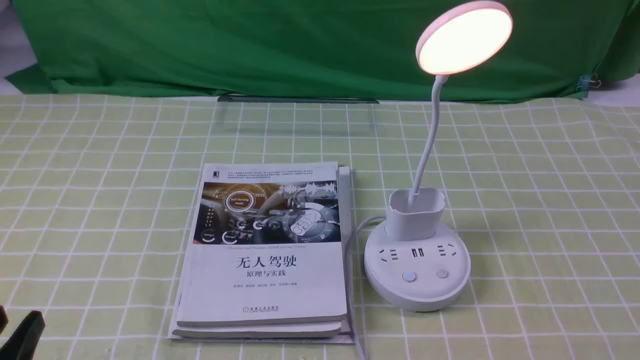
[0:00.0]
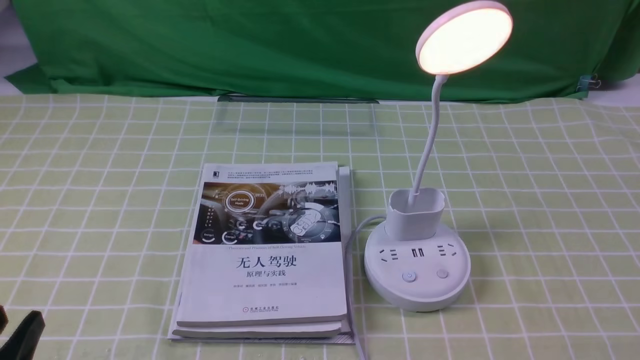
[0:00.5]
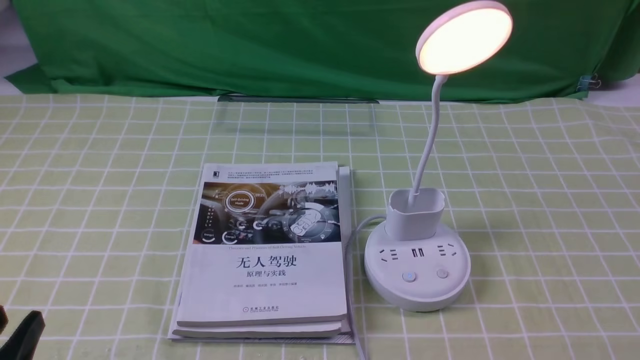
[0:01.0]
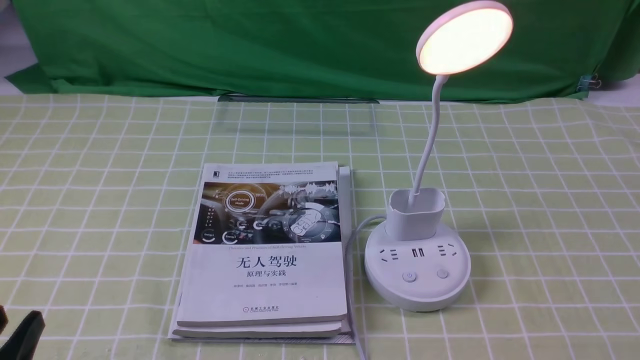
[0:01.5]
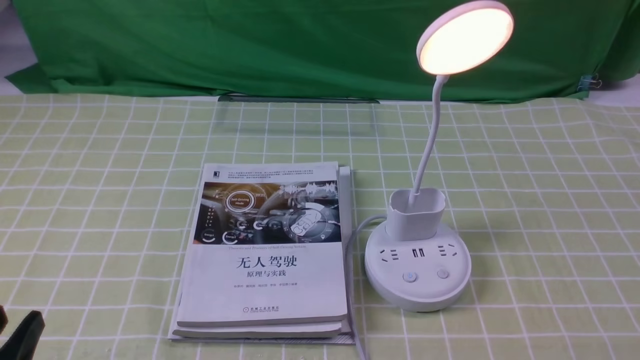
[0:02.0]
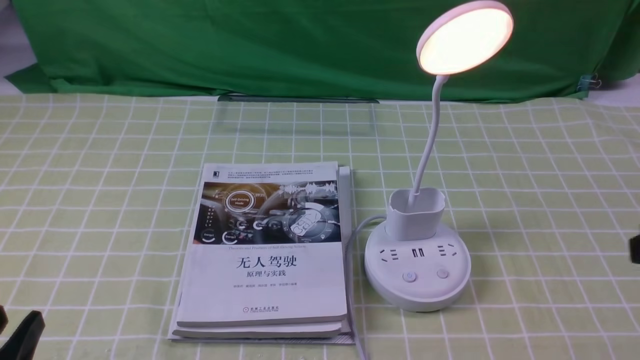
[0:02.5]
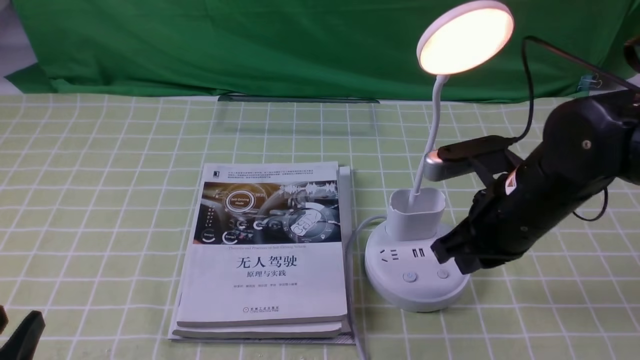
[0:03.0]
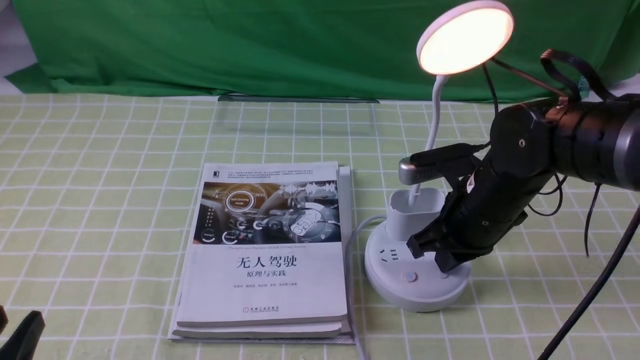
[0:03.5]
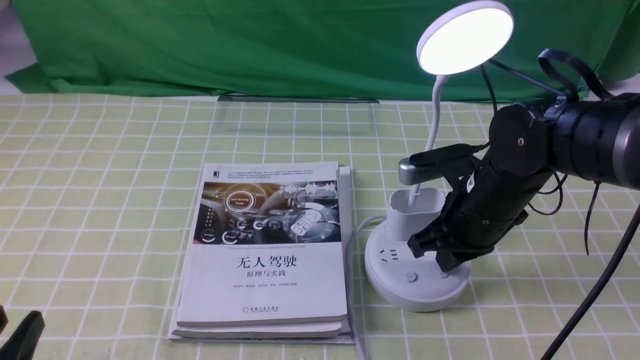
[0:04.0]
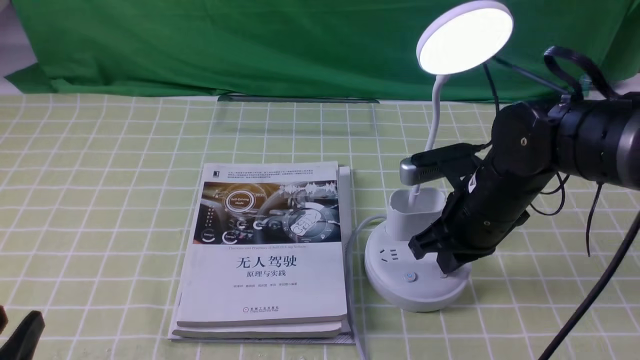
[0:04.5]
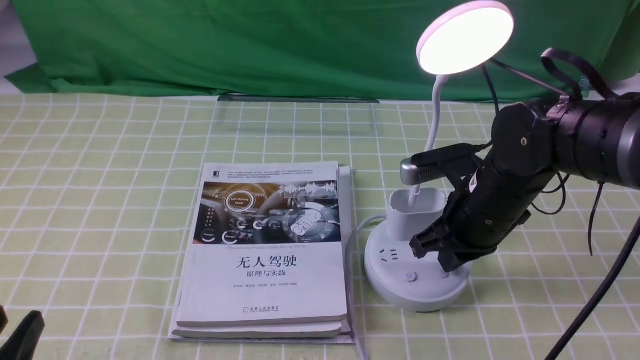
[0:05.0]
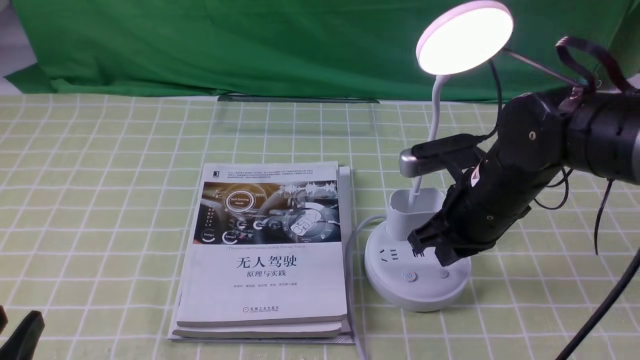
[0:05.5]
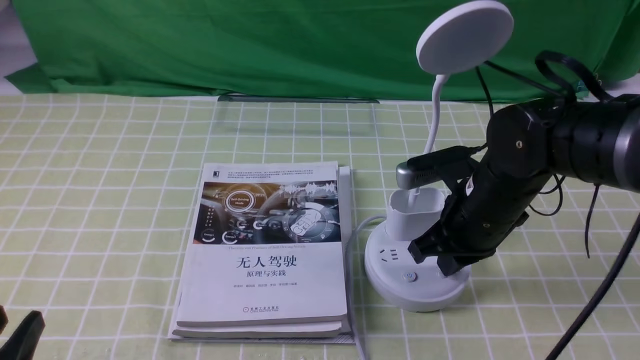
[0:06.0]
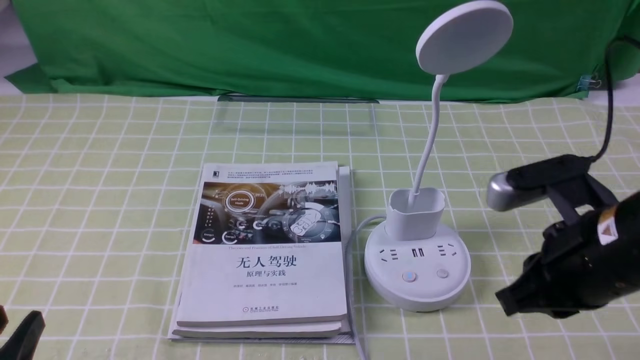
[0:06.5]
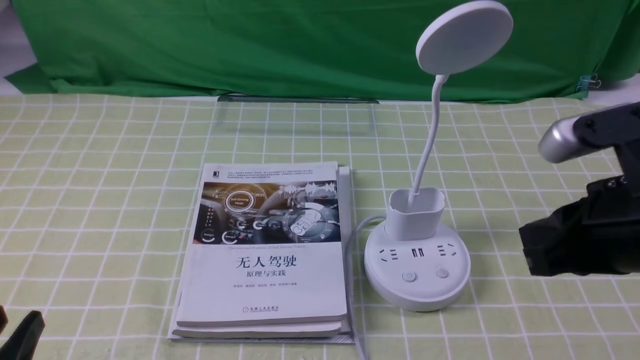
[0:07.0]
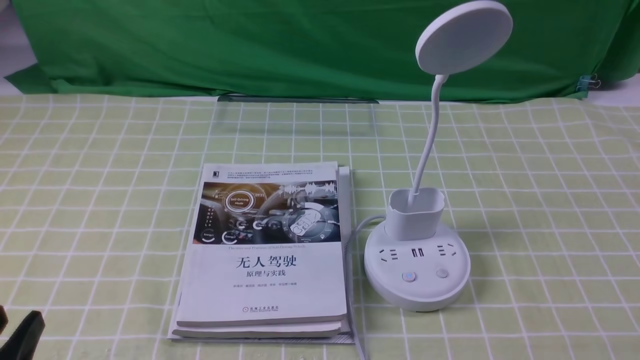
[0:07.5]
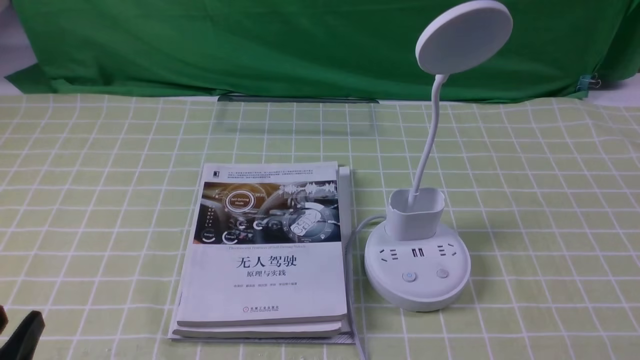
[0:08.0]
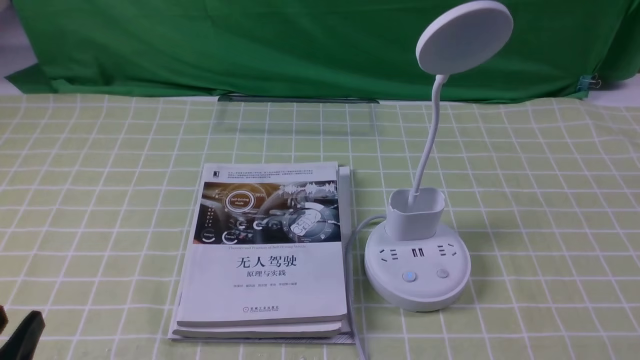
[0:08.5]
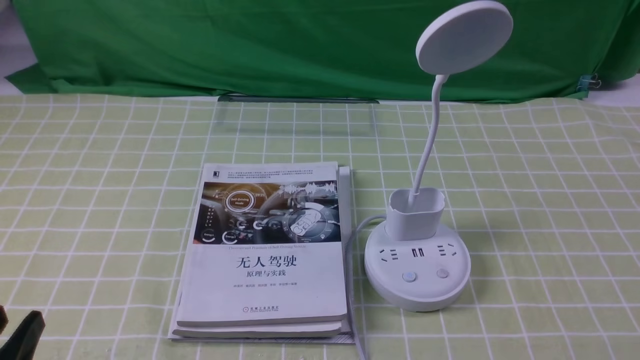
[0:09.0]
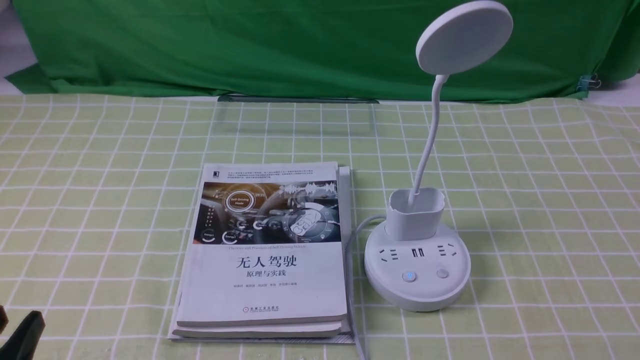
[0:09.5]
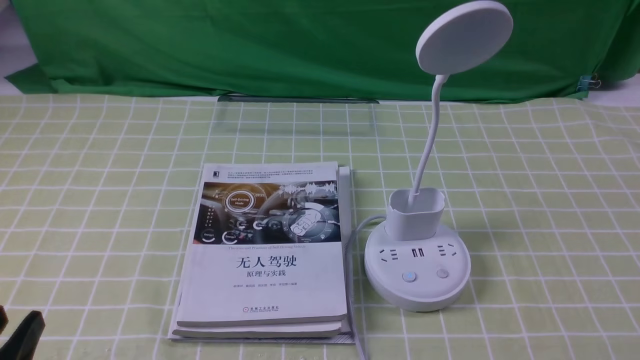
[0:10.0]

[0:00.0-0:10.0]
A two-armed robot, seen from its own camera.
Task of the whole recording: turn off the desk lamp on the green coffee tablecloth by hand.
Step, 0:00.0 to 0:06.0: use the right arm to press the button switch on the lamp holder.
0:02.0 to 0:04.0: The right gripper goes about 30 cm forward and to the left, and closes up.
0:04.0 to 0:06.0: There are only small adjustments of the grippers.
0:06.0 to 0:08.0: The right gripper is displaced backward and to the right by roughly 30 cm.

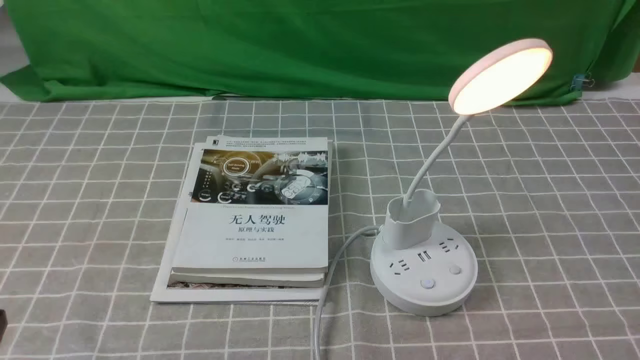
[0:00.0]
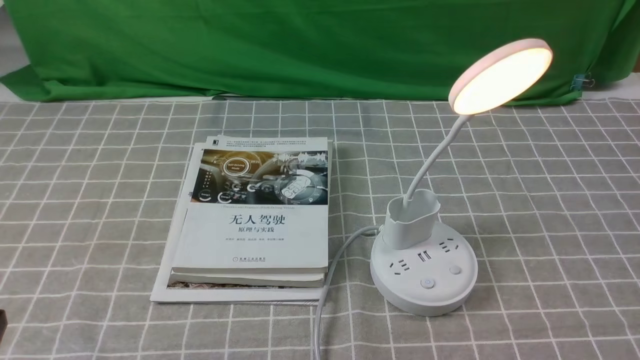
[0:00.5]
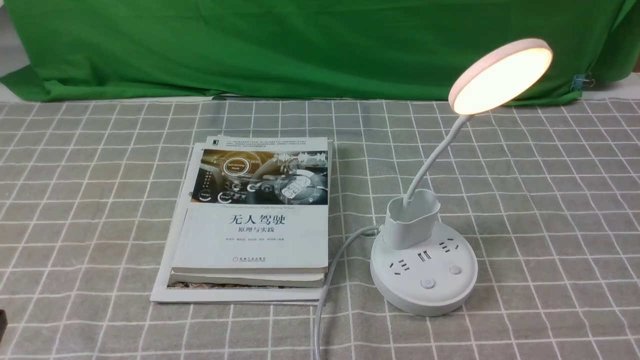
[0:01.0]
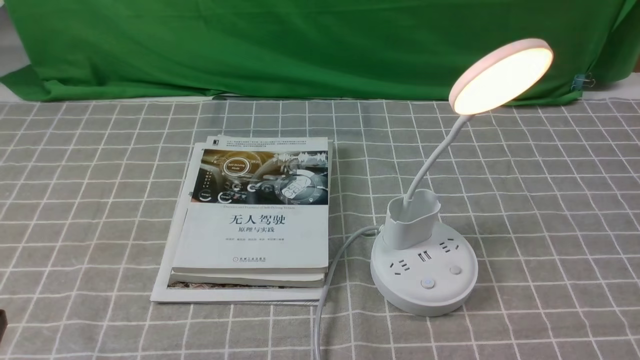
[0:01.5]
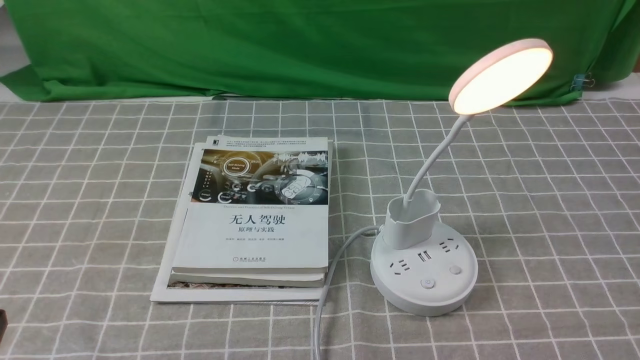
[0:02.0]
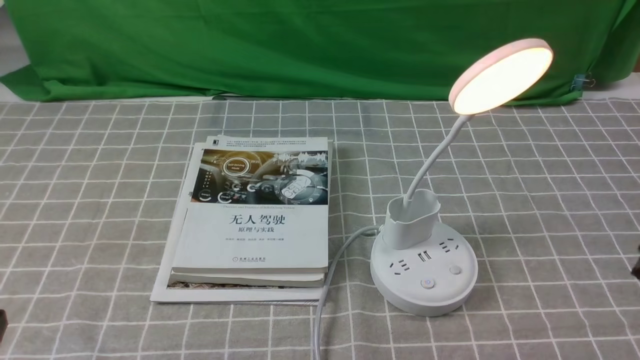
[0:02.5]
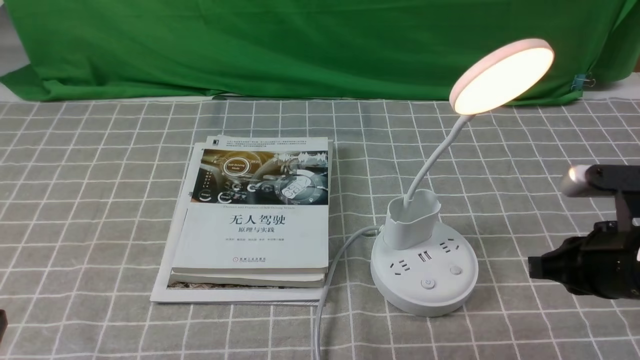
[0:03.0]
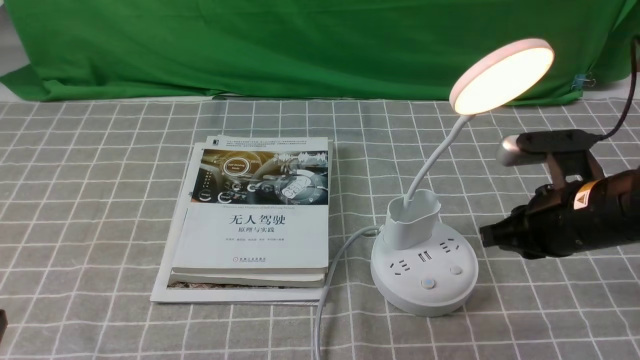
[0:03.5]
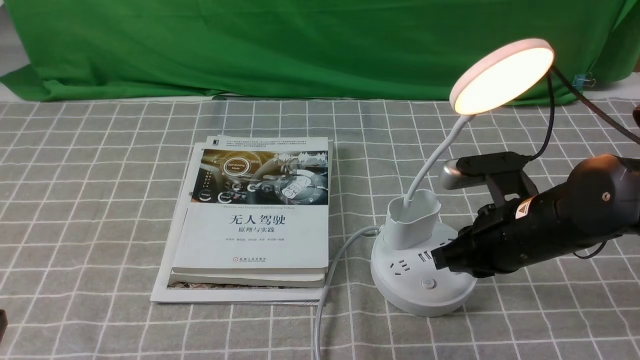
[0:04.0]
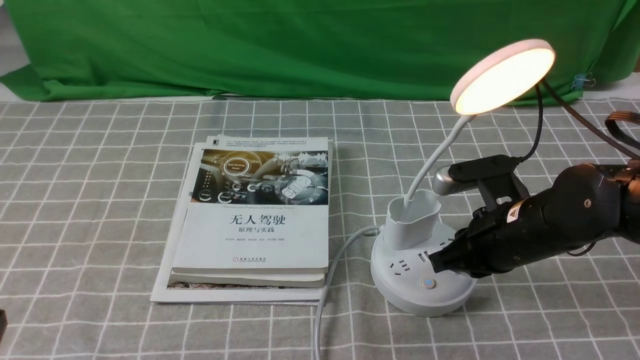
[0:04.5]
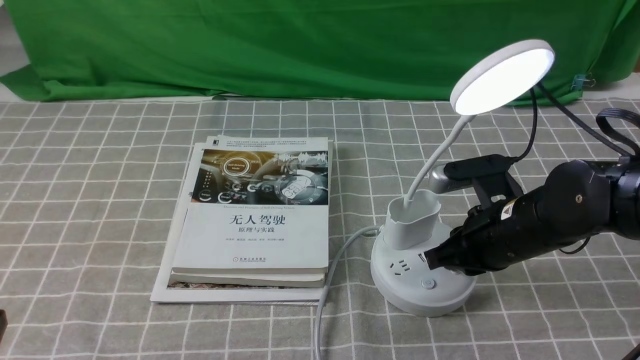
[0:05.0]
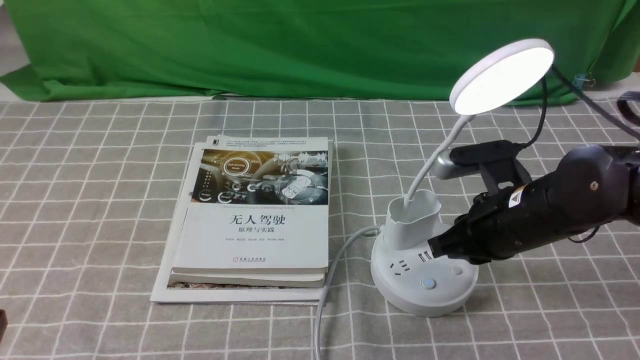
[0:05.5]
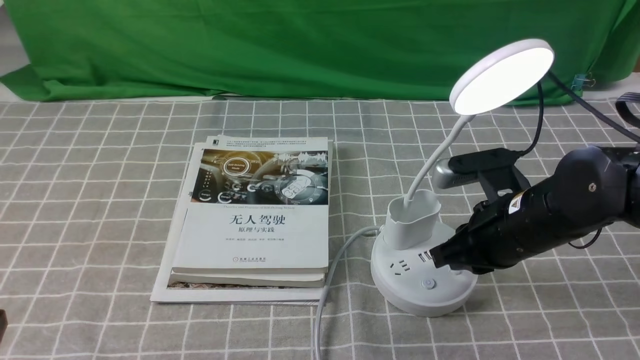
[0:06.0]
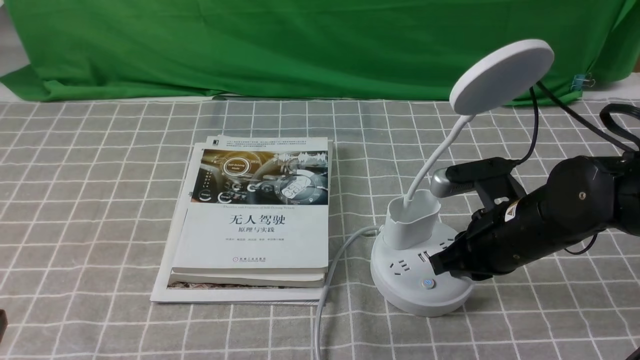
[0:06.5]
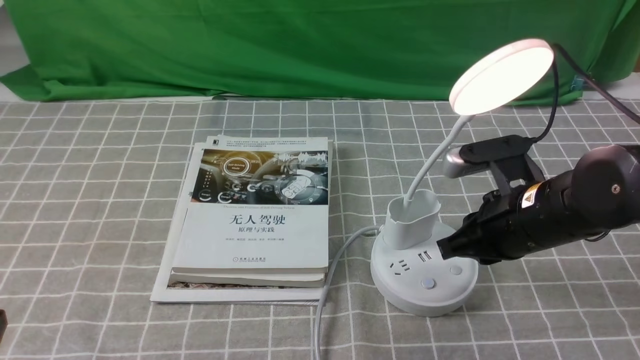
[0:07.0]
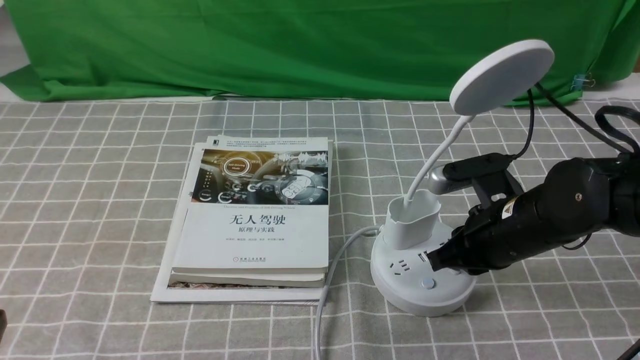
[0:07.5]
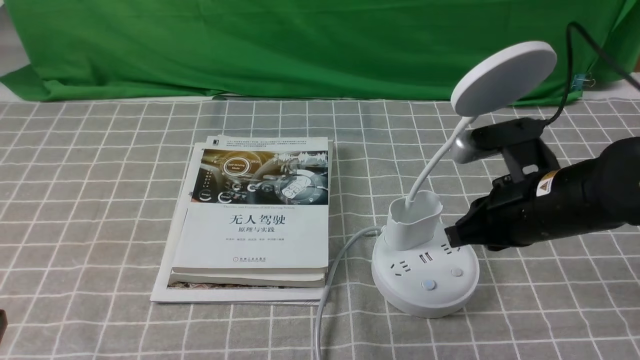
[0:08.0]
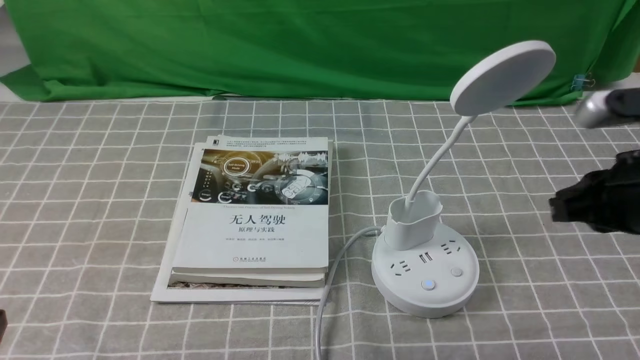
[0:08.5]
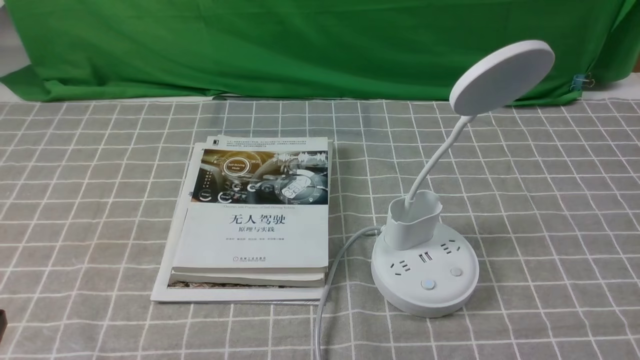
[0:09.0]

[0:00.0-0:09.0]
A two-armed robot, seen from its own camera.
Task of the whole recording: turn off the desk lamp on the grey coffee tablecloth by hand.
Step, 0:00.0 to 0:07.5: use the right arm to press the button switch on the lamp holder.
0:02.0 to 0:04.5: The right gripper shifts approximately 25 cm forward, to the left and downward.
0:04.5 to 0:07.0: The grippers make only small movements.
0:07.0 to 0:09.0: The right gripper shifts approximately 20 cm backward, to the right and upward, and closes.
